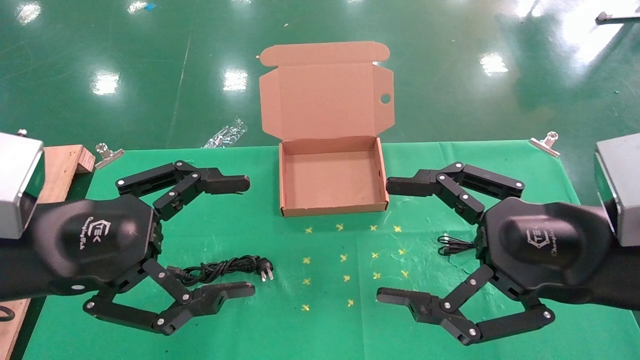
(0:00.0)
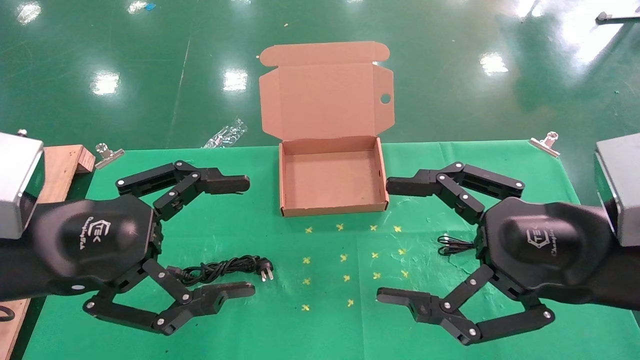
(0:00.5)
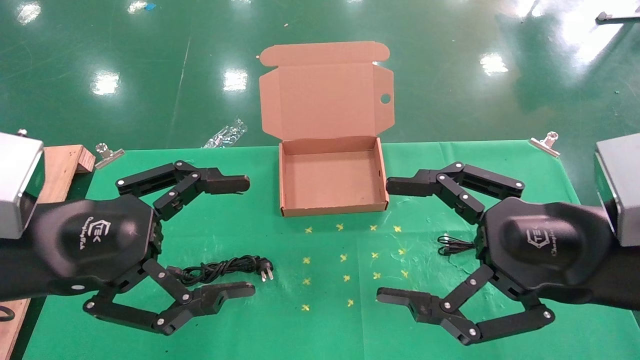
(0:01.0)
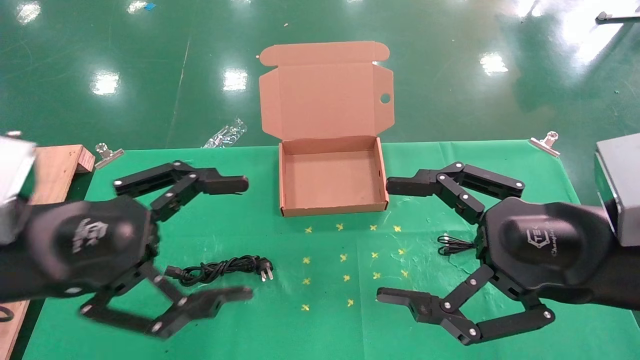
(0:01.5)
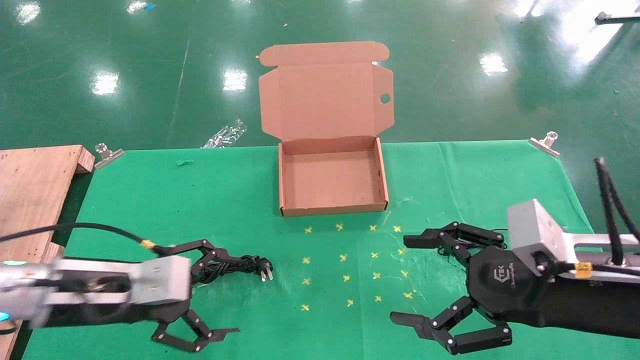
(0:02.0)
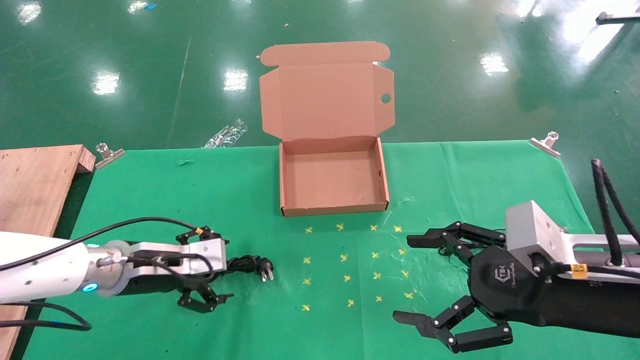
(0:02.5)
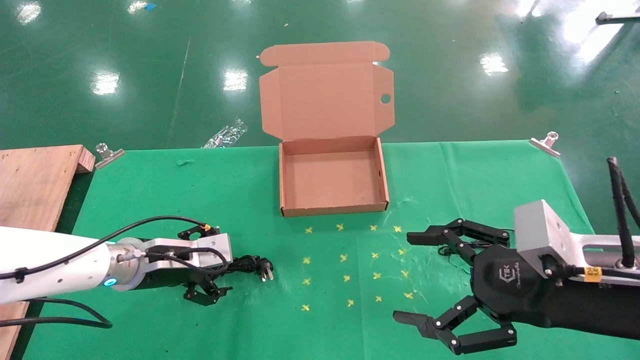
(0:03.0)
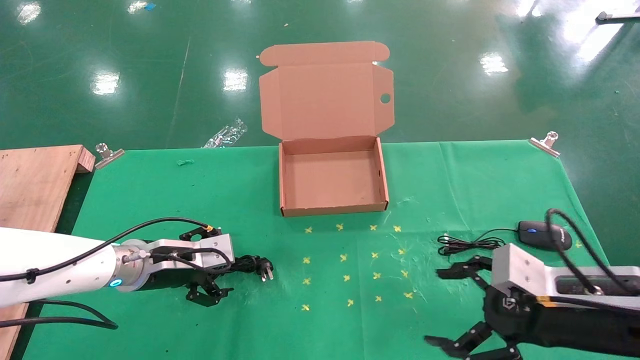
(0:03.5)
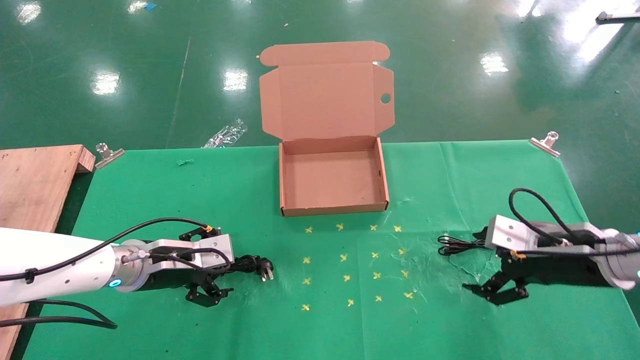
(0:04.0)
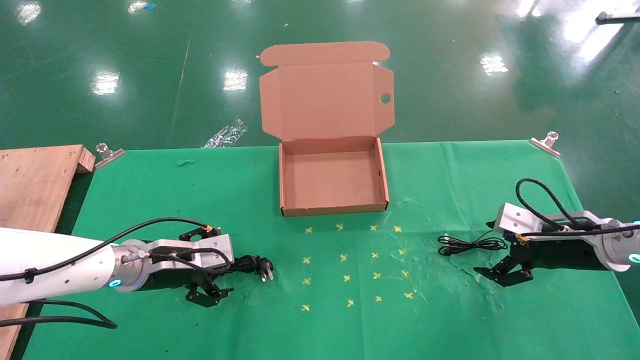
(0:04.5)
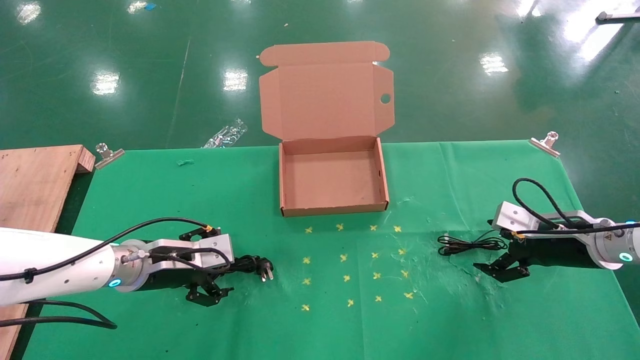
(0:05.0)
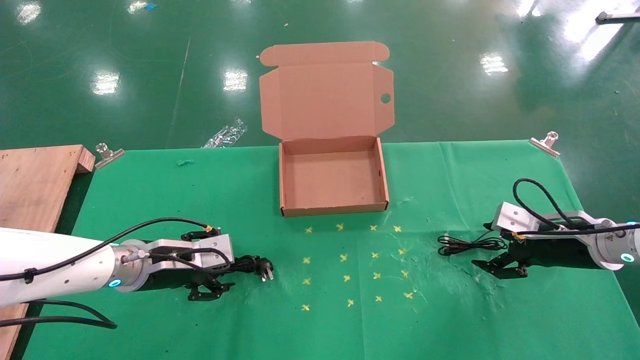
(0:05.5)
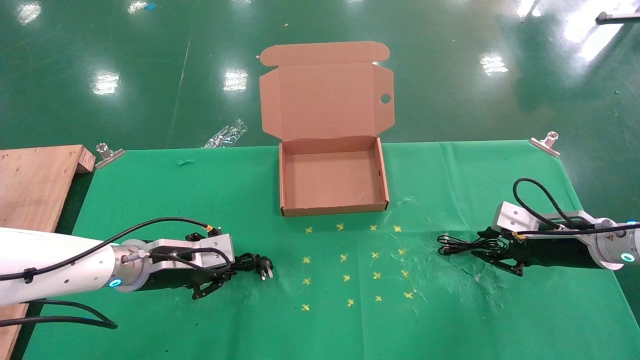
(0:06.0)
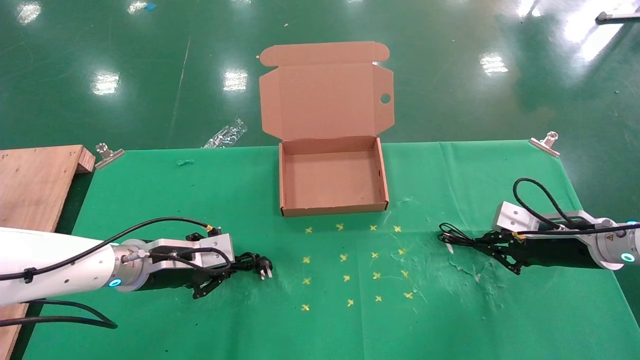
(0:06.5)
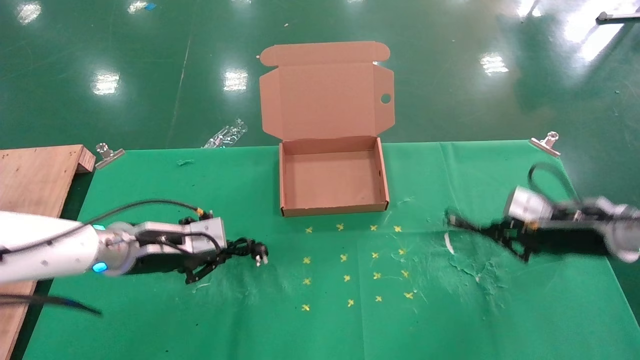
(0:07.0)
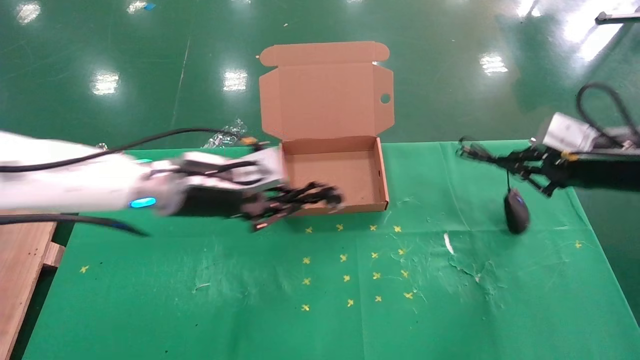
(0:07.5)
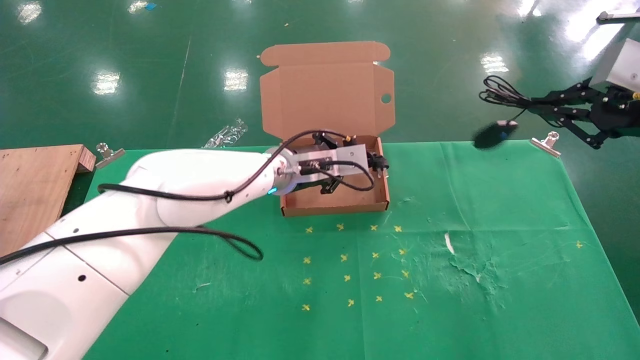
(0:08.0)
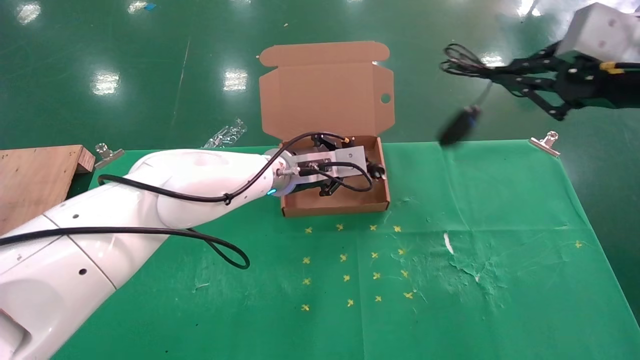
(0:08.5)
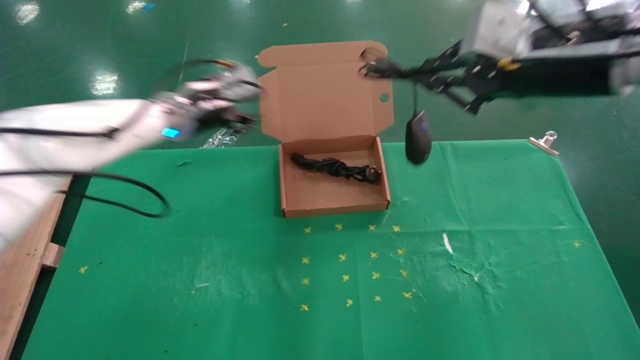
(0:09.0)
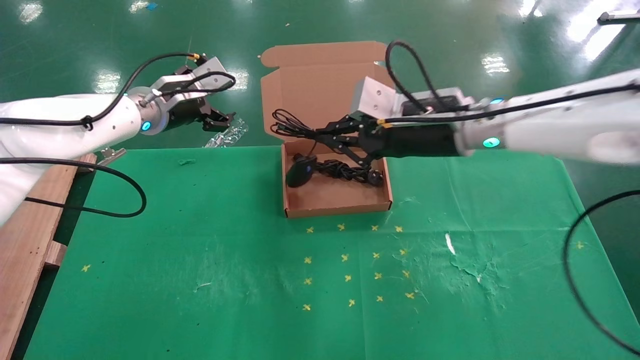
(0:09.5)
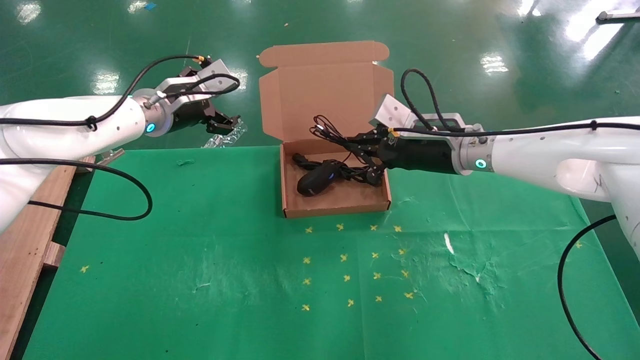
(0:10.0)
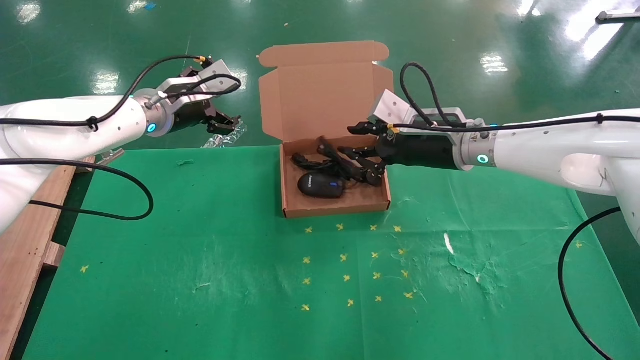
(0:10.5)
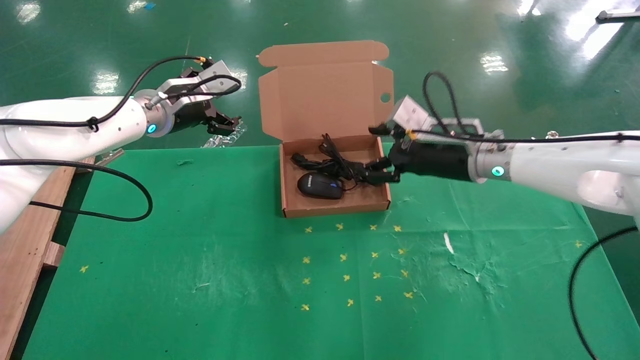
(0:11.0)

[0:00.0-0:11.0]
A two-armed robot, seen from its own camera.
Task of the whole recording: grasp data cable left put into box grasp mouse right put into box.
Step, 0:02.0 to 0:06.0: Simultaneously pick up the mouse and power cord from the accessory packaging area.
Step, 0:06.5 to 0:10.5: Place the mouse and power cord into the box.
0:00.0 to 0:02.0: The left gripper heads downward and forward, covering some 15 cm. The right gripper is displaced downward by some 5 cm.
0:02.0 to 0:03.5: The right gripper moves about 5 cm. The left gripper travels forward by roughly 10 cm.
0:03.5 to 0:05.5: The right gripper goes about 15 cm forward and to the right.
0:05.5 to 0:07.5: The right gripper heads upward, covering about 15 cm, and closes up. Meanwhile the left gripper heads upward and to the right, covering about 15 cm, and closes.
0:07.5 to 0:09.0: The left gripper moves forward and upward, roughly 10 cm, goes to the right and returns, roughly 10 cm each way, and opens its fingers. The right gripper shifts approximately 20 cm to the left and upward.
0:09.0 to 0:11.0: The right gripper shifts about 15 cm downward, forward and to the left, and opens, while the left gripper opens its fingers.

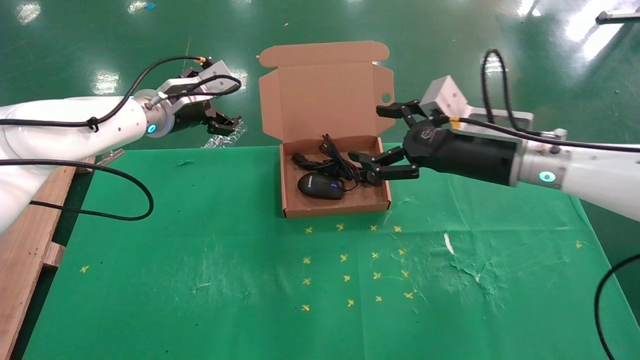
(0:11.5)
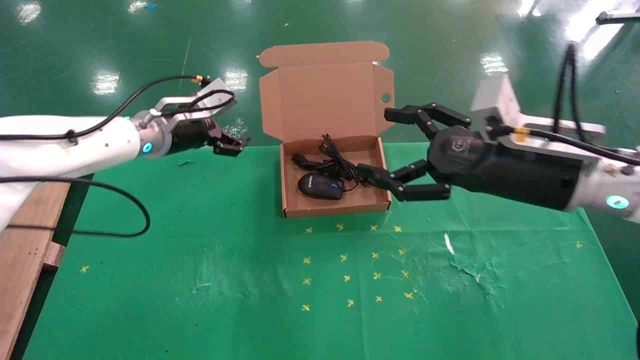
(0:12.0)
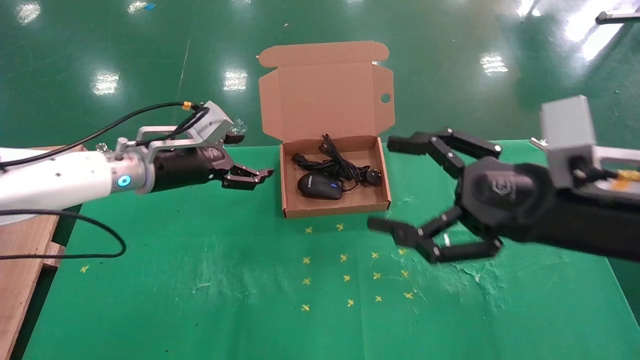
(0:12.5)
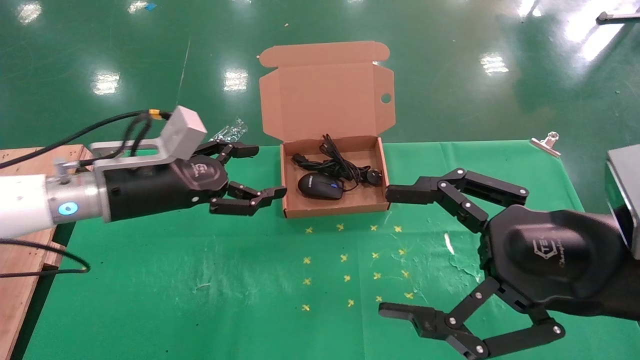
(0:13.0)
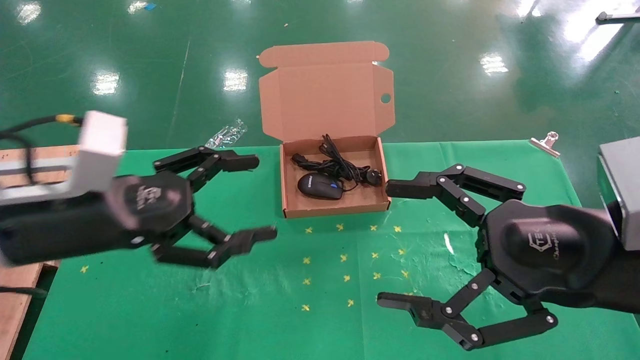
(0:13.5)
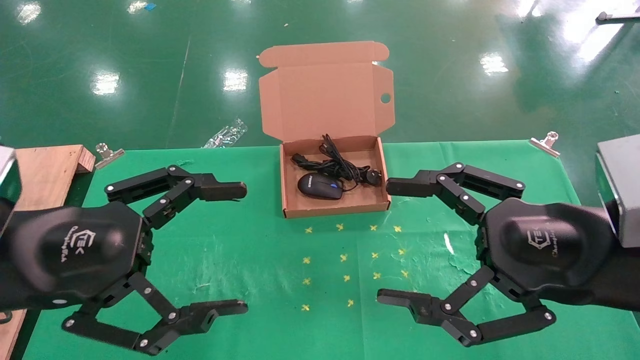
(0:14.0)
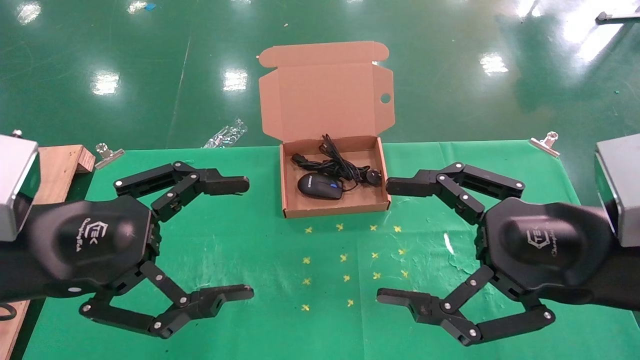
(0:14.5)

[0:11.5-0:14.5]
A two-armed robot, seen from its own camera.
Task of the whole recording: grasp data cable left put into box grasp mouse right put into box.
0:11.5 to 0:13.0: The right gripper moves backward, about 20 cm. The left gripper moves backward and downward, roughly 15 cm.
0:13.0 to 0:14.5: The left gripper moves backward, approximately 15 cm.
